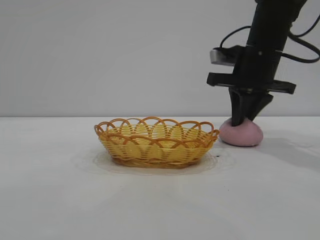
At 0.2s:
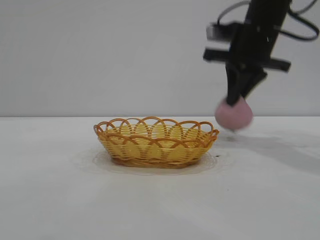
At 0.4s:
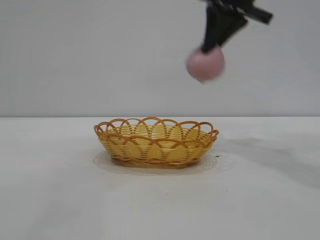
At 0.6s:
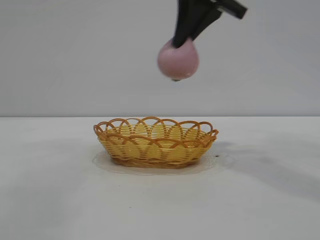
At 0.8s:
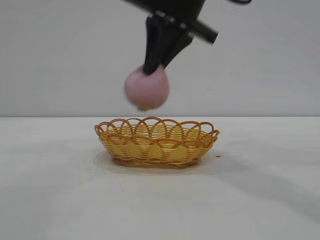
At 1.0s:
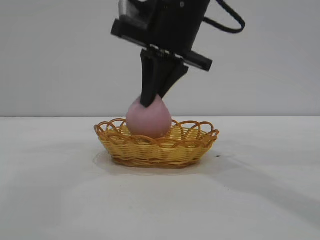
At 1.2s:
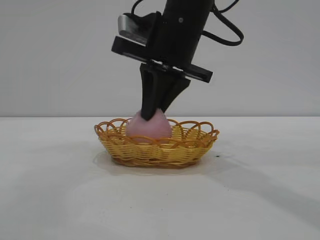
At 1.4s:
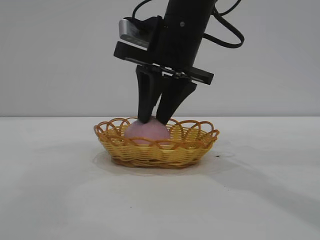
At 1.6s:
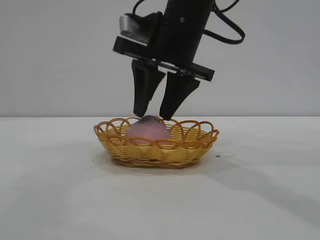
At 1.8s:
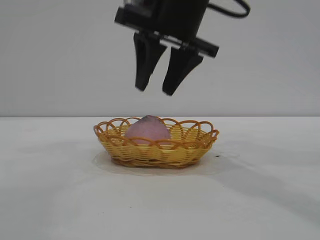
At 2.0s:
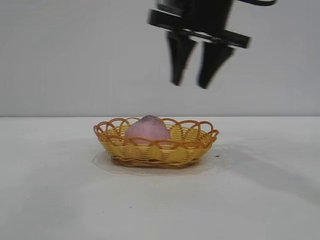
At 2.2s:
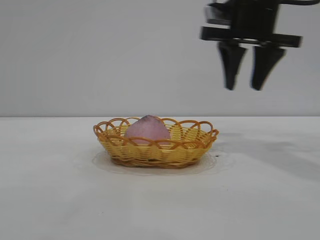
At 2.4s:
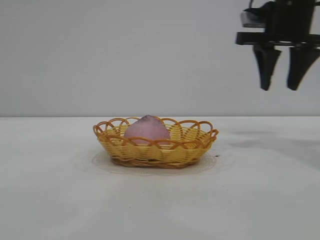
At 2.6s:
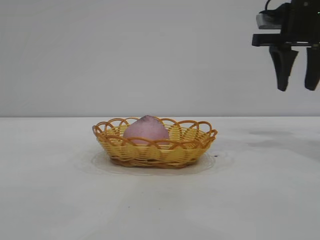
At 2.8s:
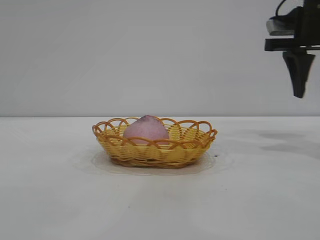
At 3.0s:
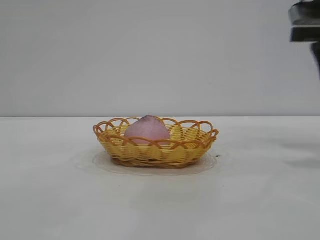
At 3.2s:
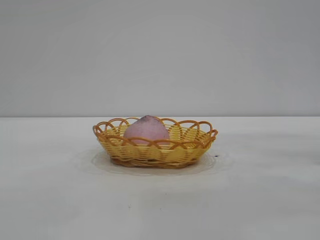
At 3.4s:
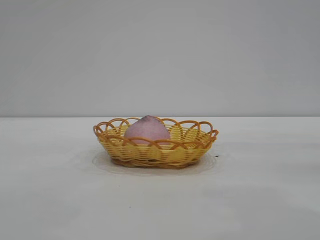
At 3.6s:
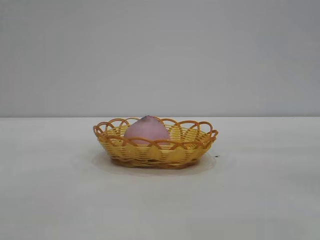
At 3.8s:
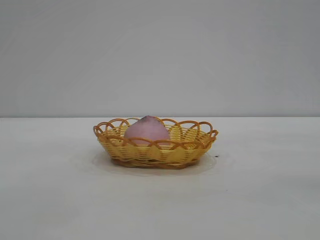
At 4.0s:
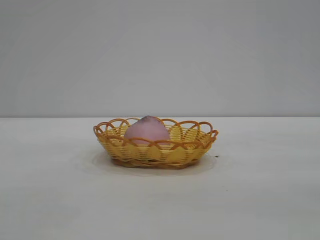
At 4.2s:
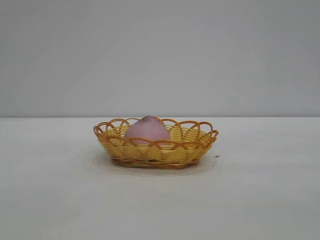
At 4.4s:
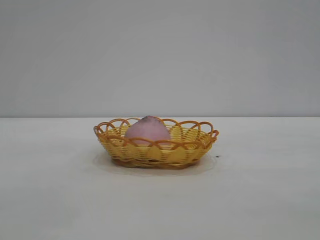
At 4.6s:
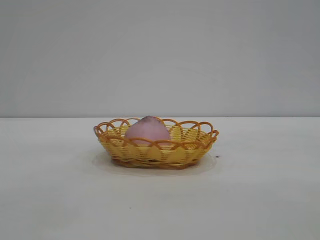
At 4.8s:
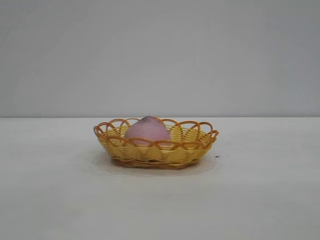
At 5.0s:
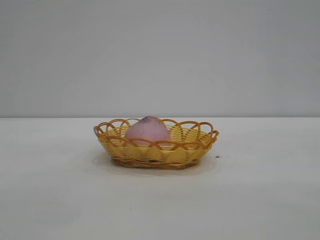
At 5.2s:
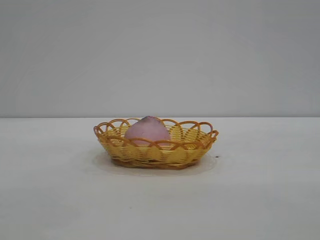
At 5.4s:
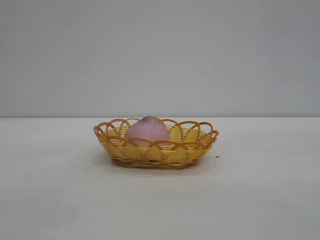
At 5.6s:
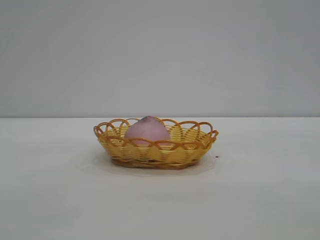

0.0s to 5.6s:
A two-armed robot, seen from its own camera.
Task of the whole recording: pick up the peach and put it into the basket.
Step, 0.4s to 1.8s: place the peach into the basket.

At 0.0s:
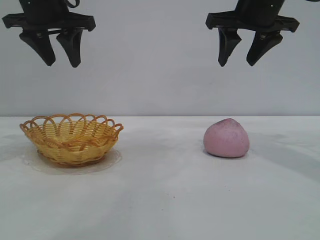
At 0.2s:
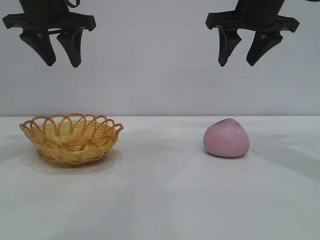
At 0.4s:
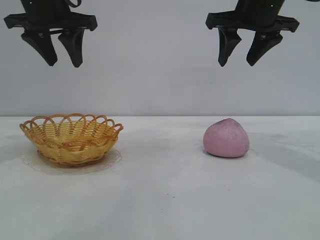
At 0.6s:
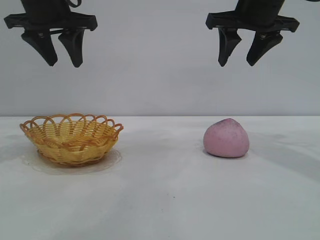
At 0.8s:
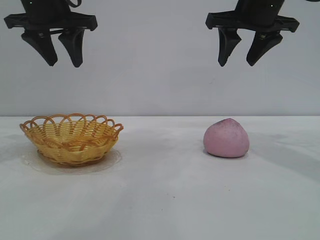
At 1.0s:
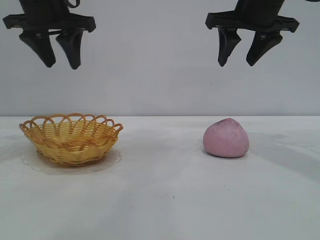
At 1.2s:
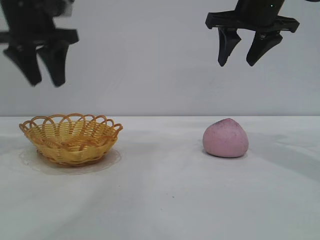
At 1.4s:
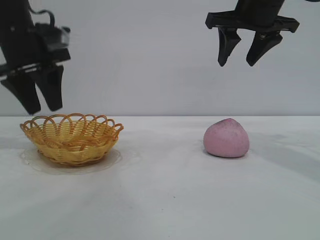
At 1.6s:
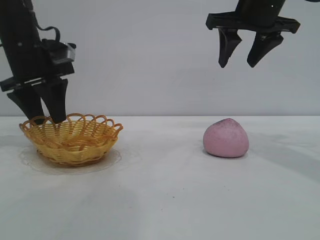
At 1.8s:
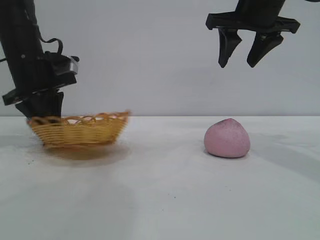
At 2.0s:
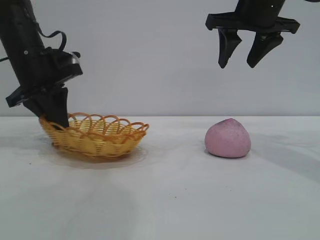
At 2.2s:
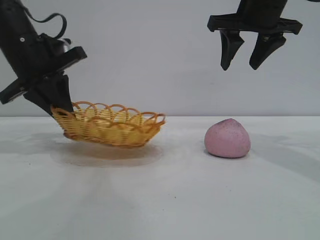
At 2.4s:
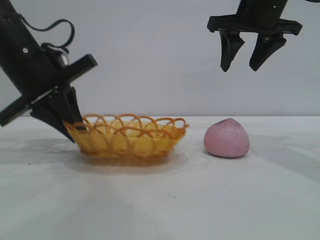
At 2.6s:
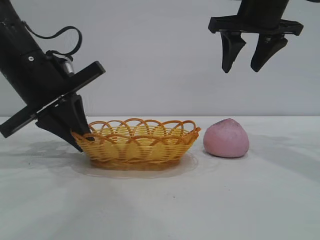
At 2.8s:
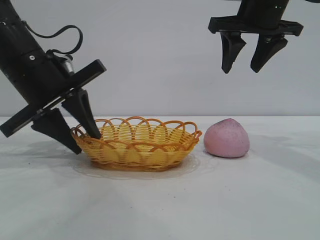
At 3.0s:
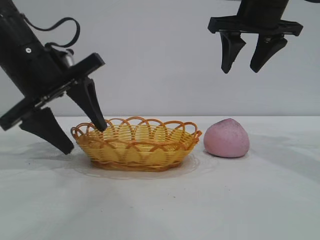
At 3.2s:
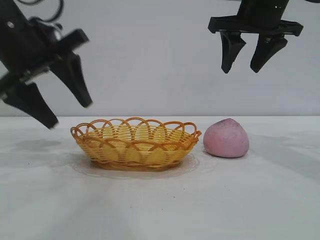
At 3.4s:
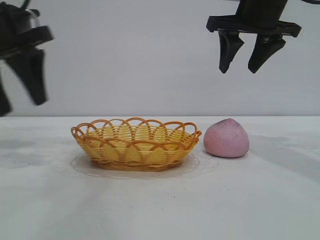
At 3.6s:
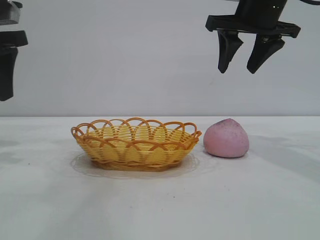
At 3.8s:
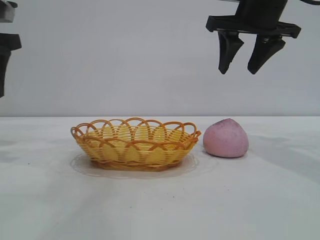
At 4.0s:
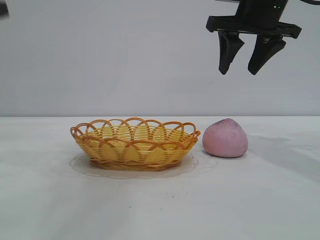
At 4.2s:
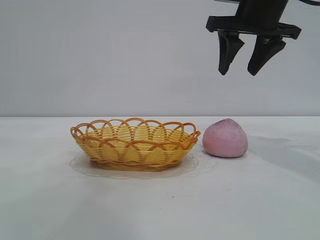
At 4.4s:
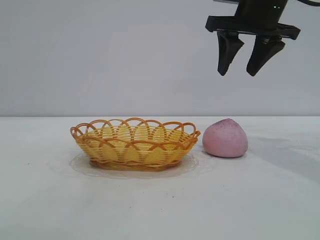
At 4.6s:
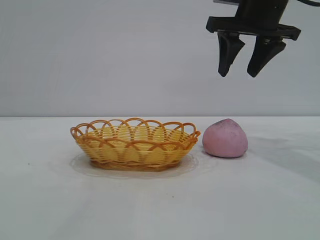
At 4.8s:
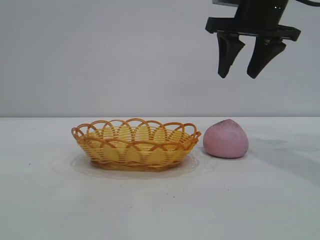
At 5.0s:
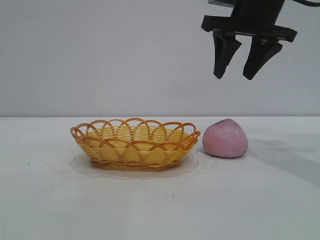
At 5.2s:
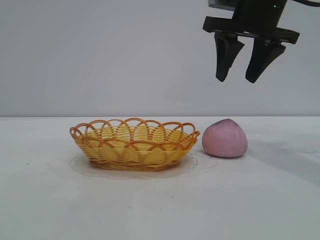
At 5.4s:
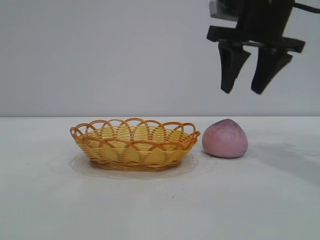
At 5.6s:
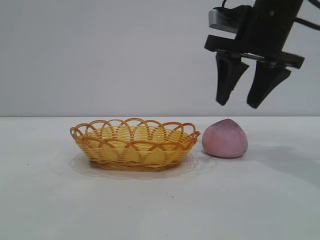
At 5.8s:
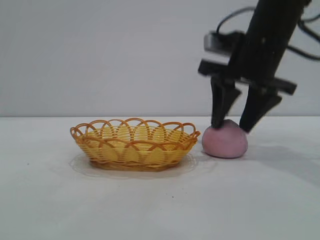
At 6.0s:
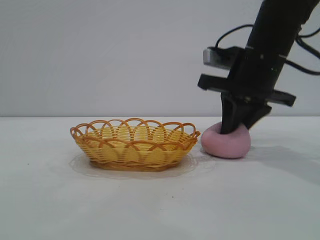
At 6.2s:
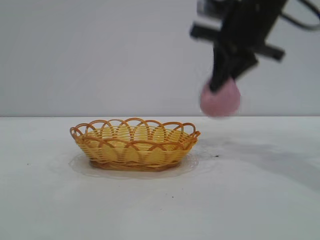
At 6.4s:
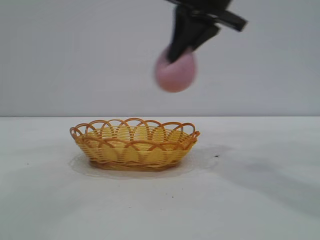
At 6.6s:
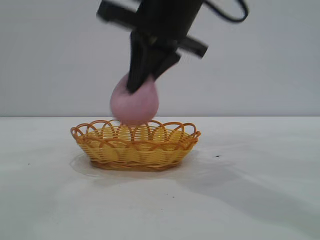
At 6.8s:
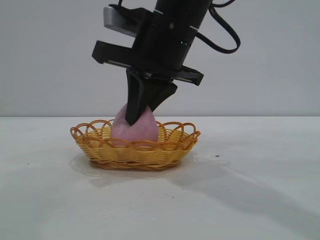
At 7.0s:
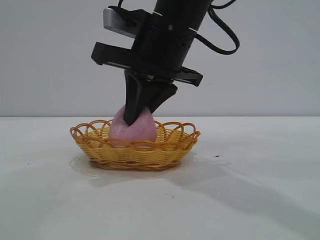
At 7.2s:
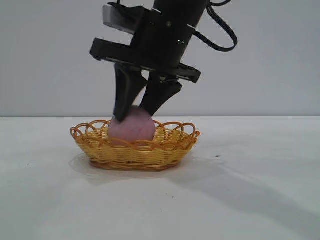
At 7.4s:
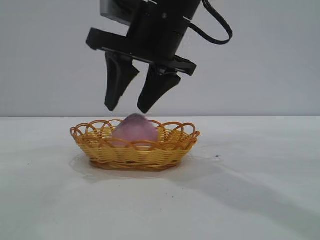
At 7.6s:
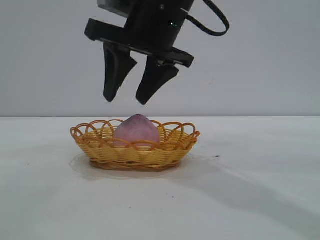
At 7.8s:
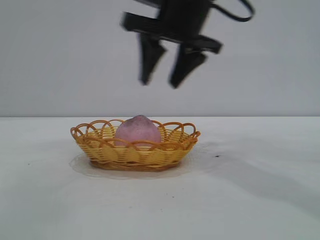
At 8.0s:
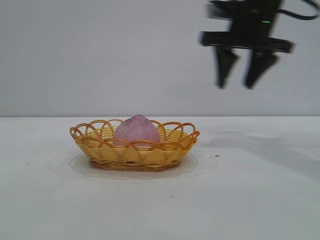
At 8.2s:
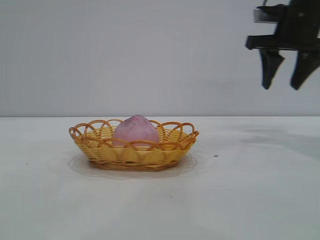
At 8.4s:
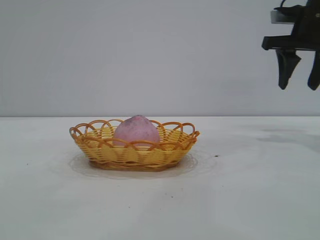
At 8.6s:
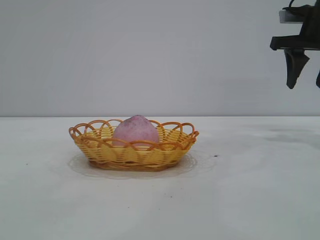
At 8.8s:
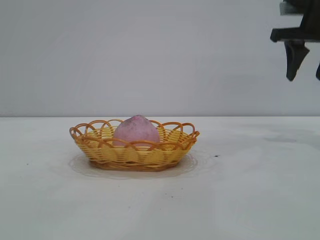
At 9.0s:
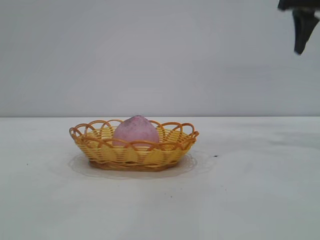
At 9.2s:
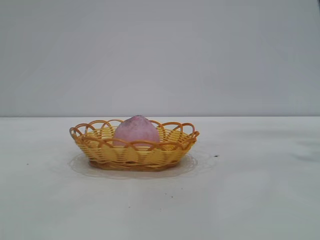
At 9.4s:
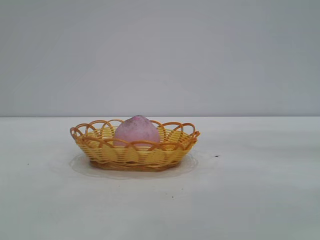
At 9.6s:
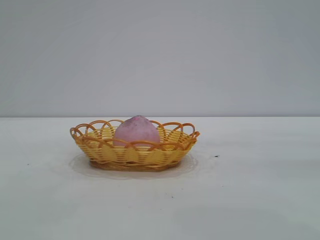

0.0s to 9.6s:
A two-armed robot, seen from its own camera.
Task of the whole recording: pick up the peach and put it into the basket.
Step, 0.0s to 3.2s: Move the basket to the center of view.
Step, 3.4s to 6.0s: Pick up the peach.
Step, 6.2s to 7.6s: place the peach into the basket.

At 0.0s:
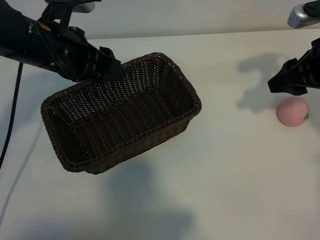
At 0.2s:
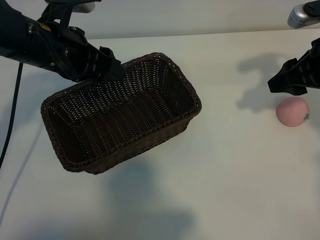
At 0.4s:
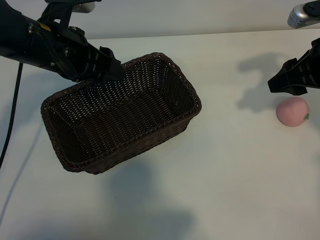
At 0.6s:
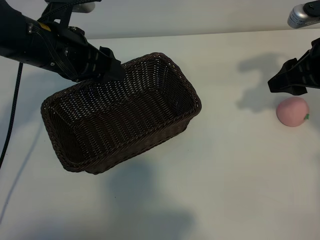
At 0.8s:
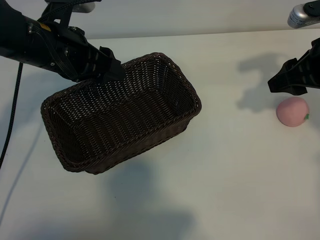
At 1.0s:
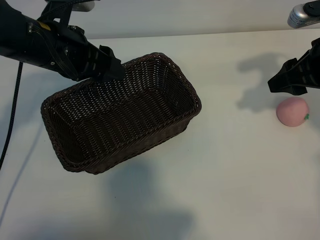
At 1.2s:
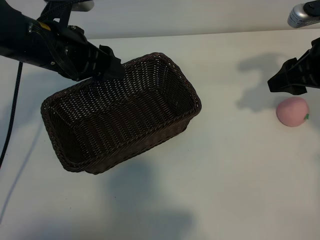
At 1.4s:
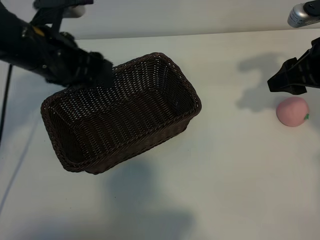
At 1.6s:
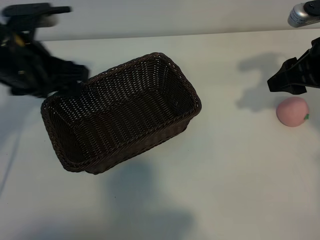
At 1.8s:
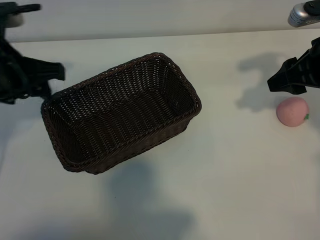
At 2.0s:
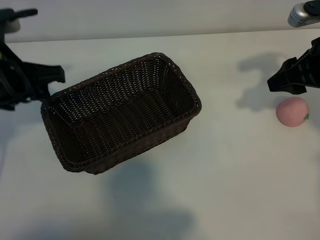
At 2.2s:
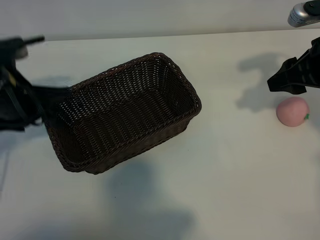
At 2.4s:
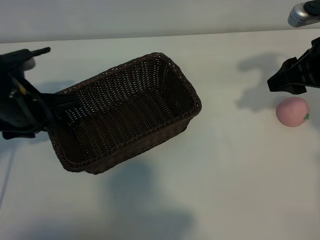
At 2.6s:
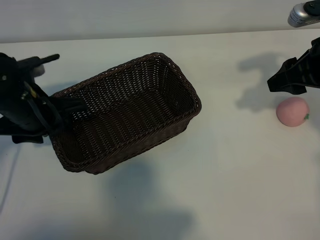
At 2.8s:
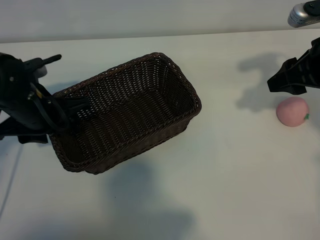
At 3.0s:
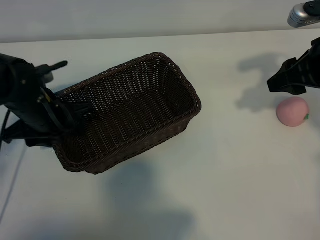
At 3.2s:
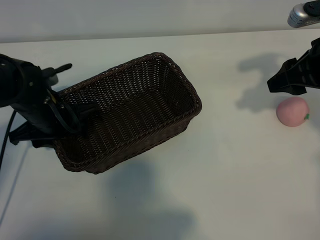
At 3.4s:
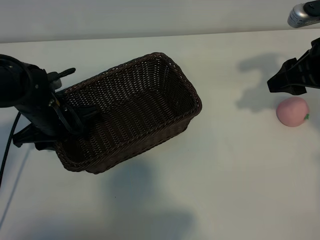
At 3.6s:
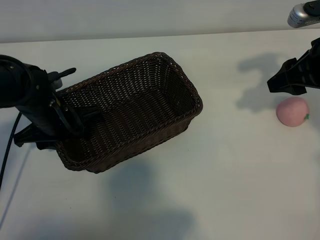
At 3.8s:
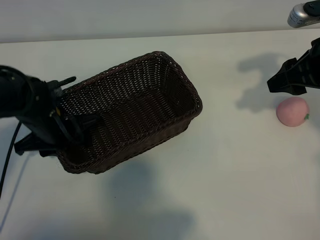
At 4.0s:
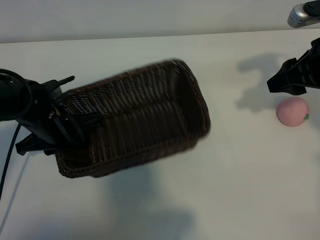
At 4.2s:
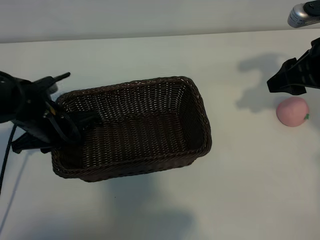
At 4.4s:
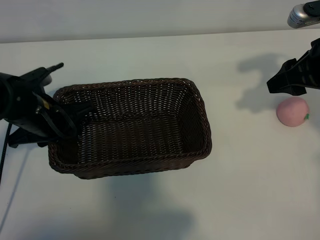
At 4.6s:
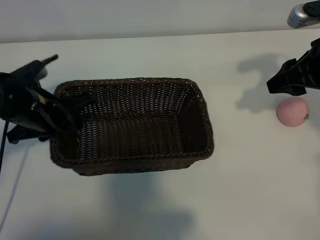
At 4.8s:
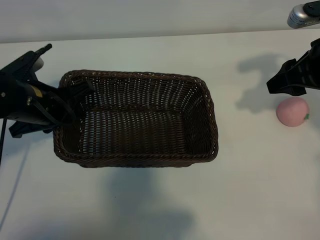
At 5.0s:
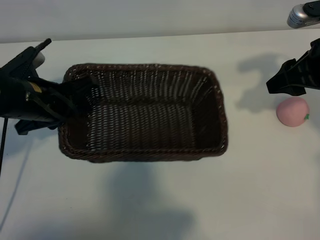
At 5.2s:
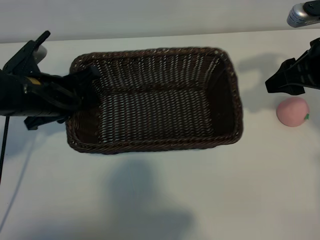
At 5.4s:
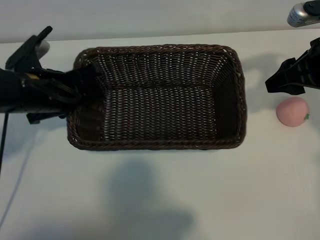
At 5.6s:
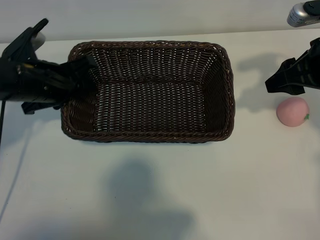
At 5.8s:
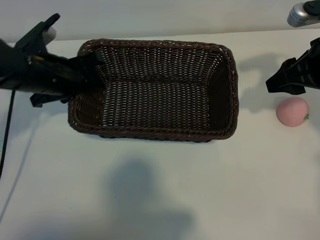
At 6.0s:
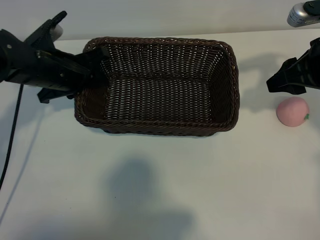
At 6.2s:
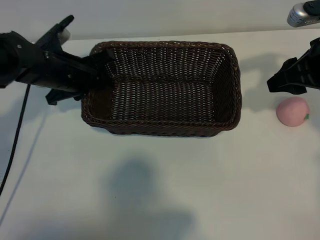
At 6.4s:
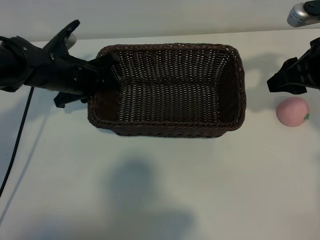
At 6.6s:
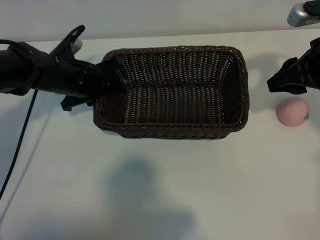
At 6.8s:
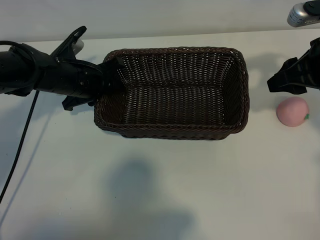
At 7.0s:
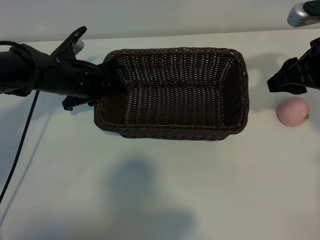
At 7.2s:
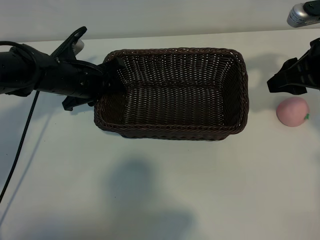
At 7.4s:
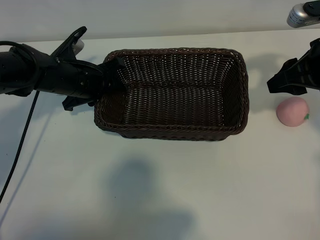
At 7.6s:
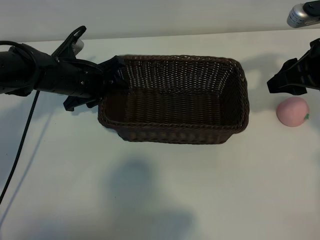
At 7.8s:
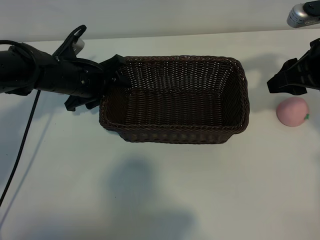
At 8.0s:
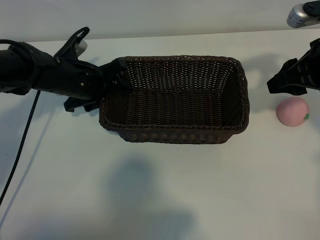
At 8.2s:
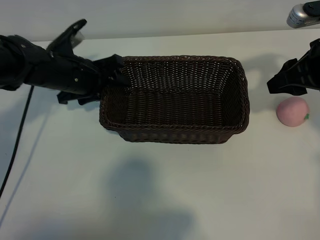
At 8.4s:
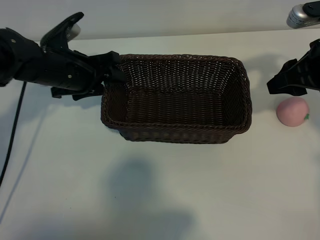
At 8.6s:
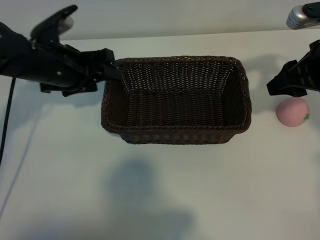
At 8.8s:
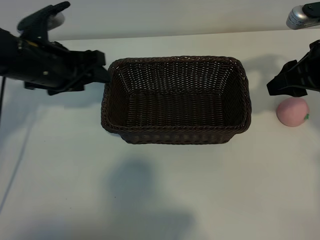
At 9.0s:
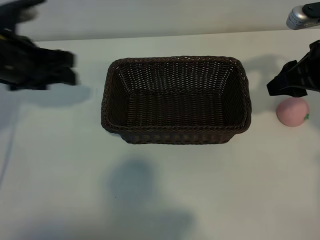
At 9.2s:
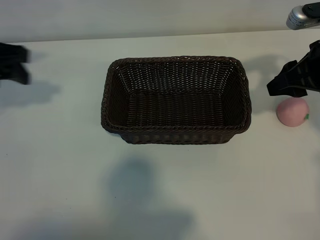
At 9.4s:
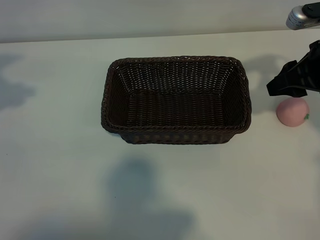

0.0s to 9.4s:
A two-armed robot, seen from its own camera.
Task of the whole recording: pick up the peach and put it into the basket.
Step, 1.0s to 4.0s: Grasp the basket with left gripper.
Step, 4.2s to 8.4s: Place the basket in the center of view with left gripper.
